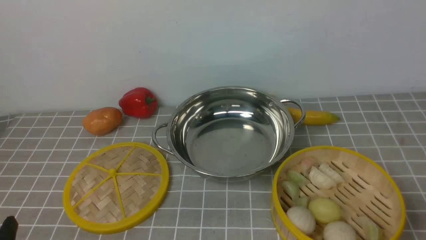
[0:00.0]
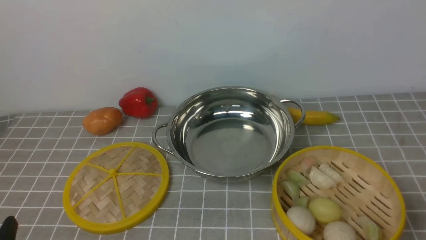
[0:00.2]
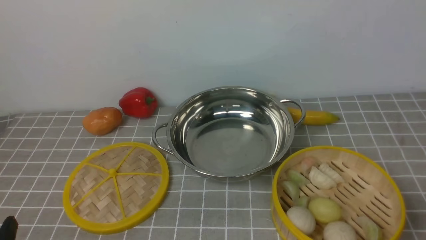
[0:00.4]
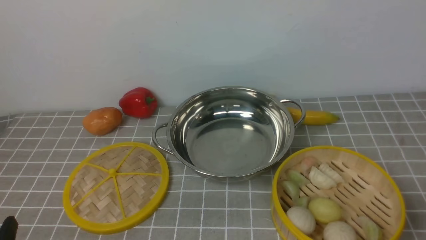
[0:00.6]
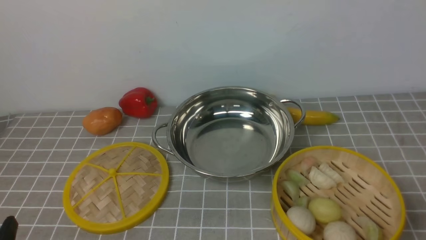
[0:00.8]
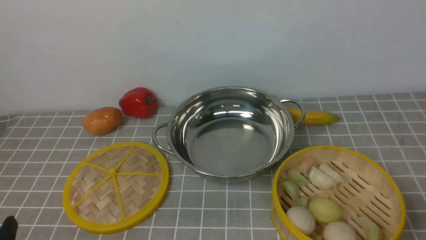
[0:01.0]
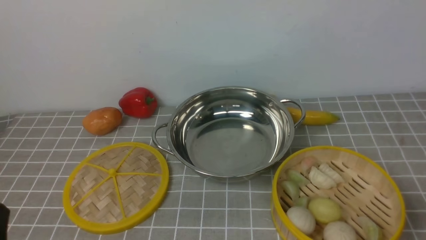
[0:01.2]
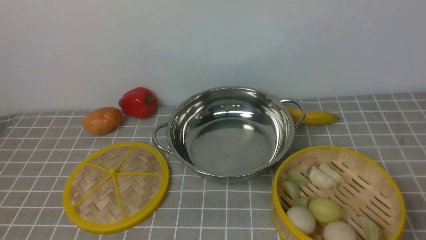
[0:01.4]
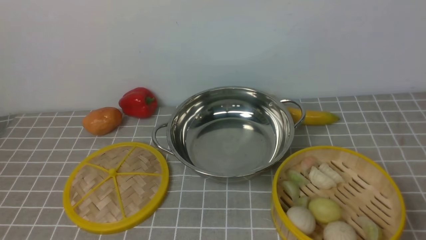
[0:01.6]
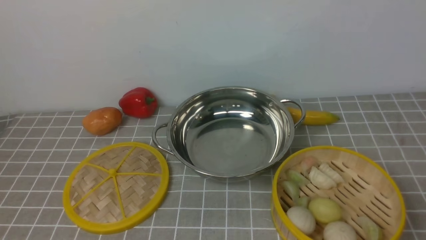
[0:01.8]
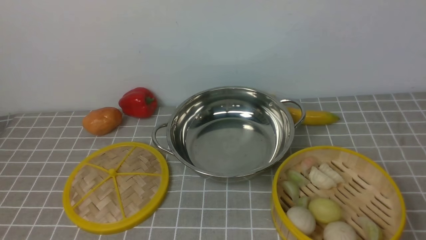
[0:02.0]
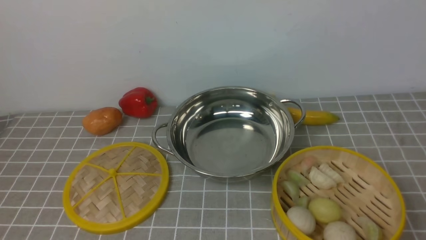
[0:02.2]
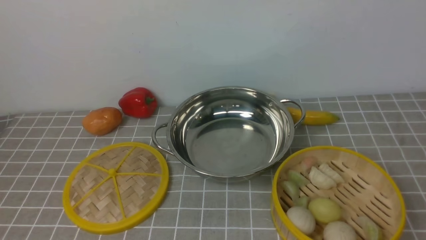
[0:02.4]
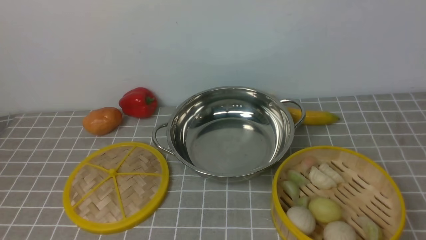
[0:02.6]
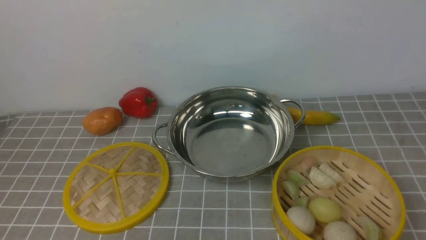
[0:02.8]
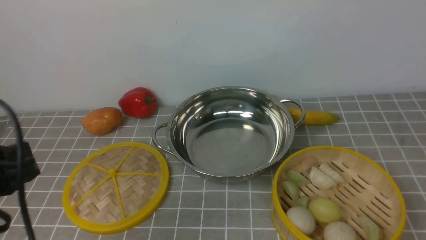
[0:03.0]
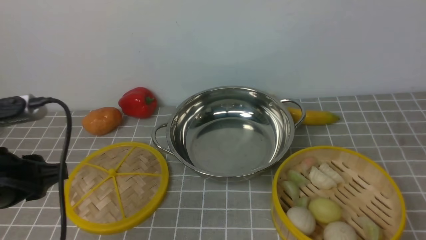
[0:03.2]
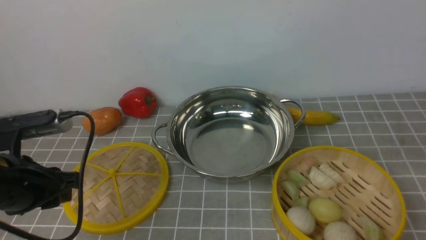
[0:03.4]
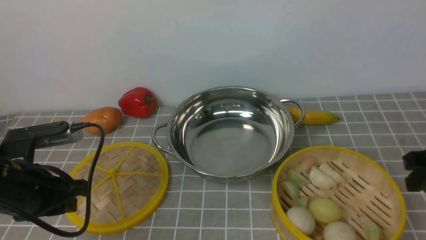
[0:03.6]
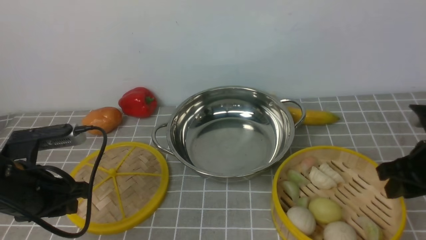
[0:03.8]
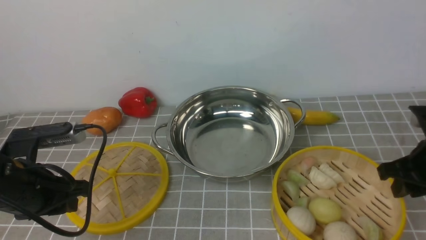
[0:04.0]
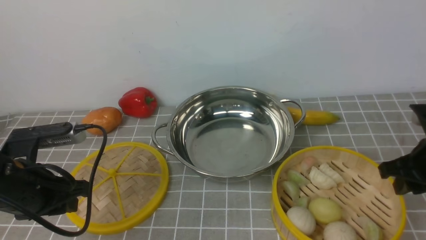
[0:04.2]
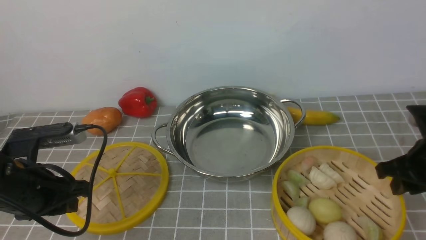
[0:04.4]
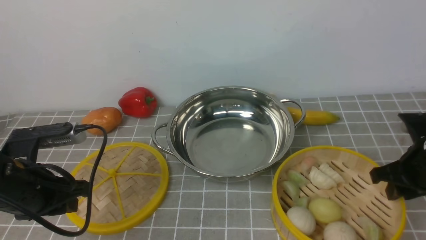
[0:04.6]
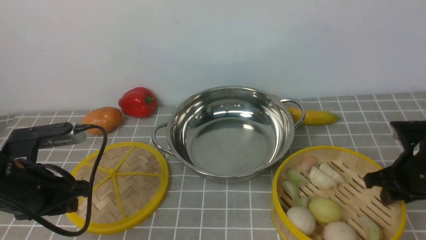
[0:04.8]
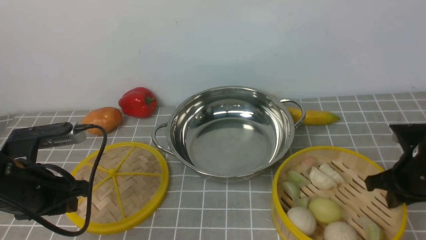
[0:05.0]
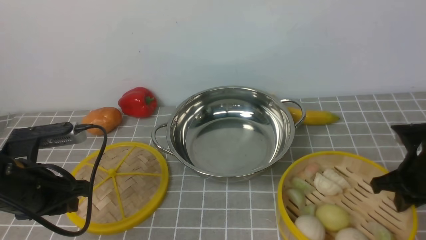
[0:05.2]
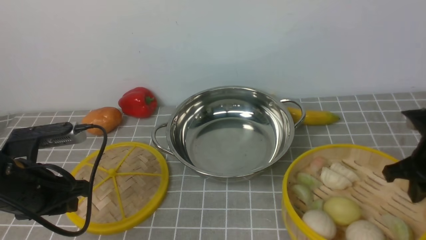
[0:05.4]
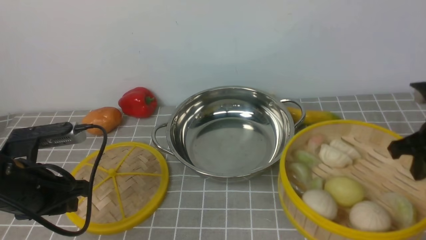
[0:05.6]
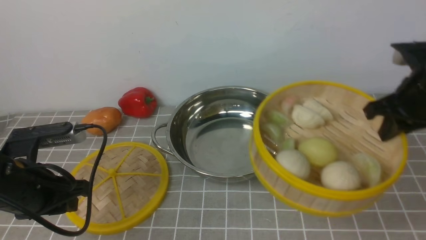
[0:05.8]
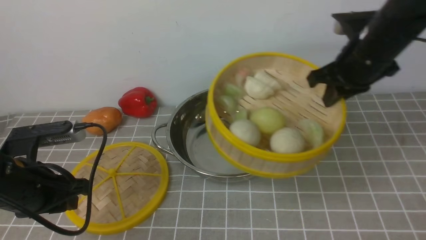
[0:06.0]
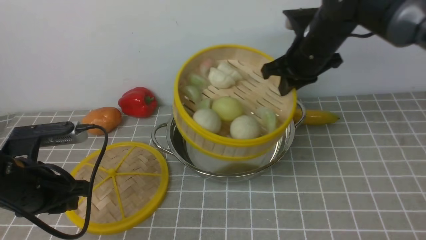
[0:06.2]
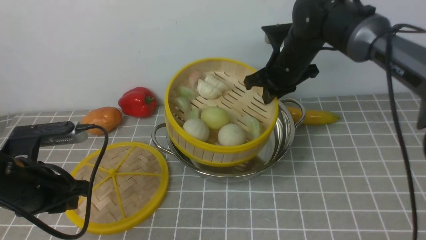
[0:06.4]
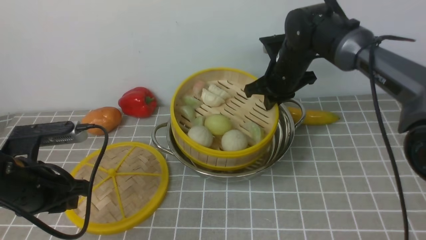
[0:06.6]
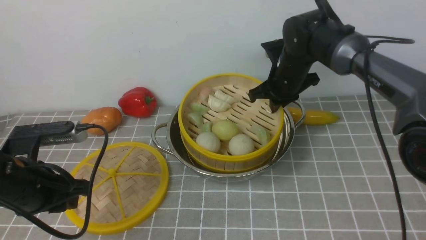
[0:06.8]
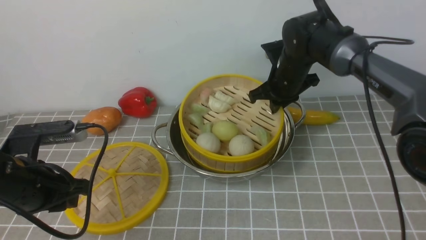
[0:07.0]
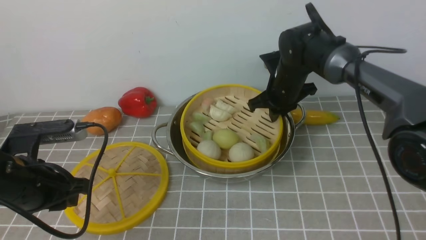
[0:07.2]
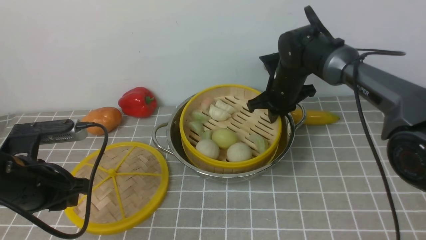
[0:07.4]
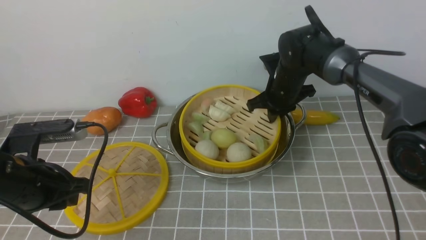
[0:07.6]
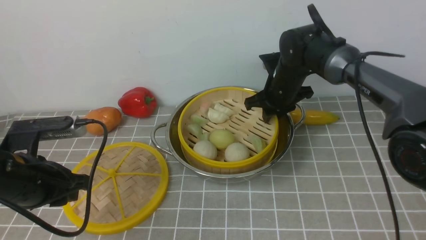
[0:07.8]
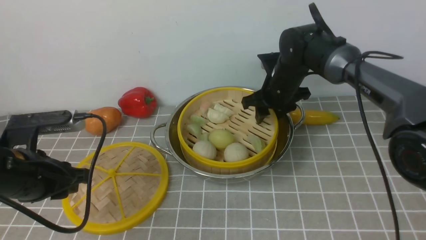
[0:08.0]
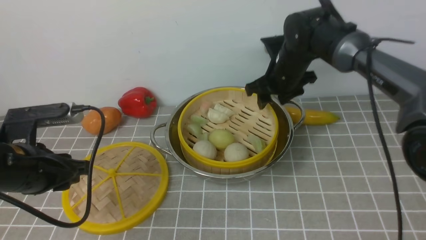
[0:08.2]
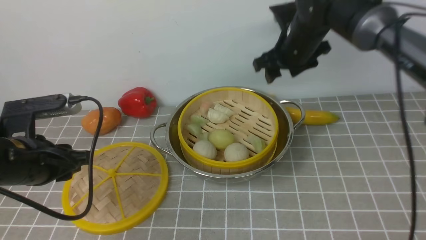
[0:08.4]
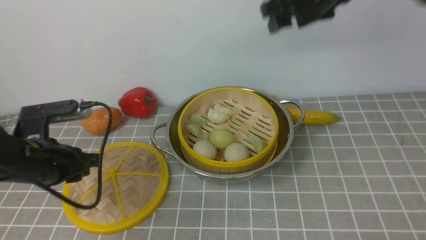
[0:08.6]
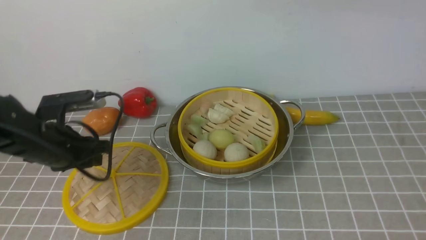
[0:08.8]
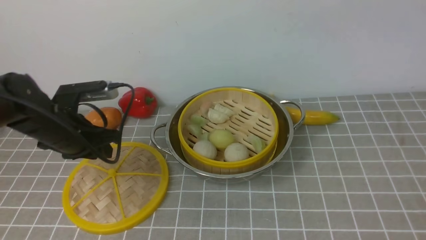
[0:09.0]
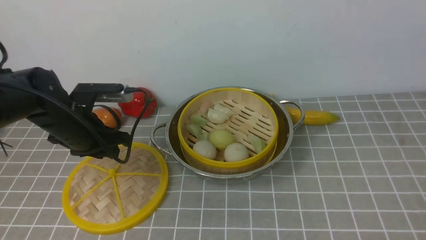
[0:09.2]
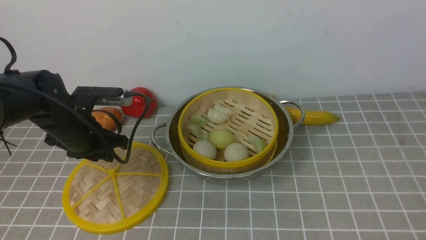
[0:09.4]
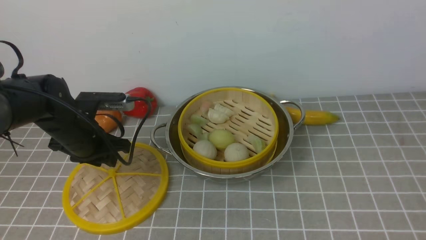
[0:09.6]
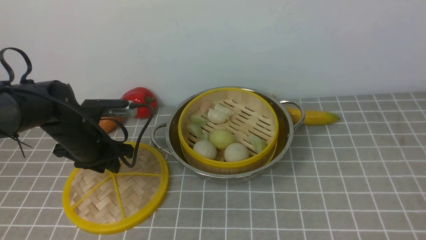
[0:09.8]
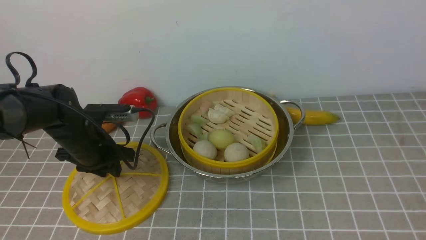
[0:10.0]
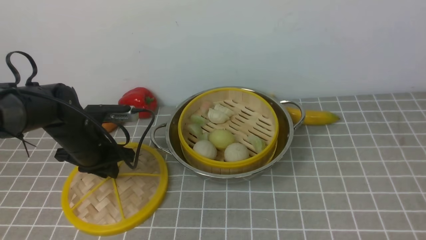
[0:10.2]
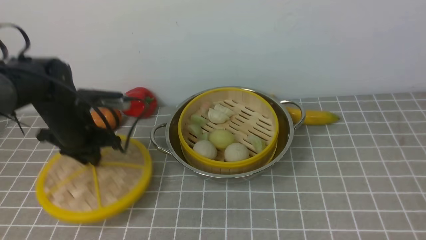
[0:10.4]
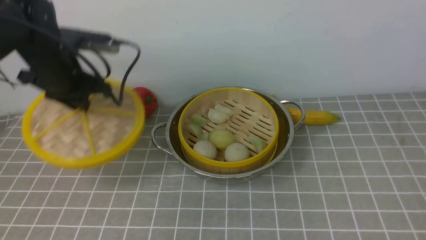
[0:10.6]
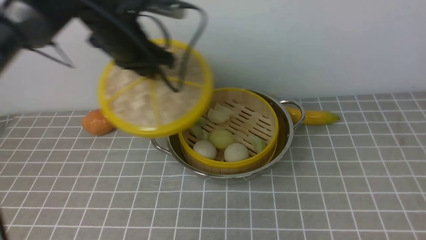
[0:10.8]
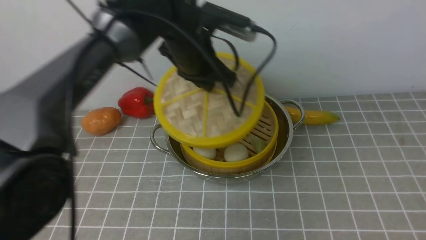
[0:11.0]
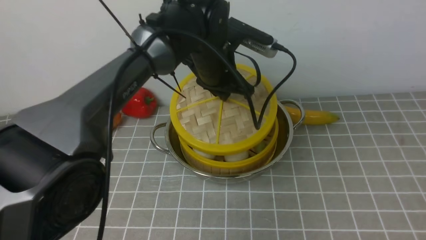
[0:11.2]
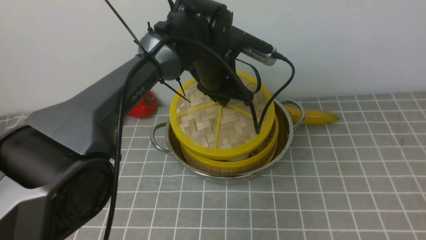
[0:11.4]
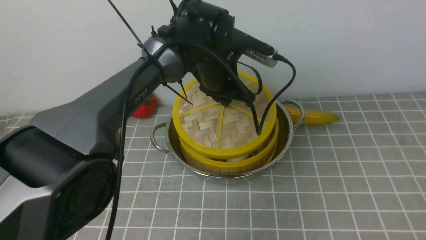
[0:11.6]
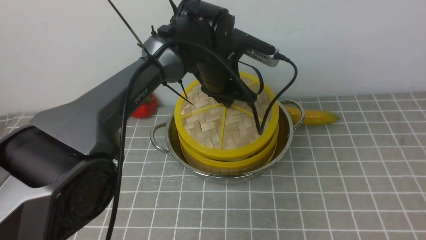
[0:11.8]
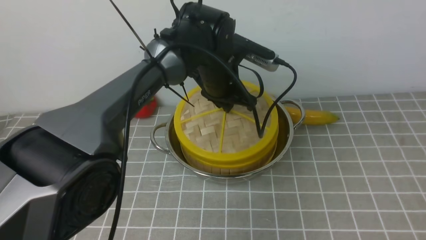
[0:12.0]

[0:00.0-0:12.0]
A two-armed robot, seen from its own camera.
Task of the whole recording: place the steamer in the pot on the grey tablecloth, and put the lid on the steamer.
Step, 0:00.0 to 0:05.2: use the right arm to lift the steamer closest to it.
Step, 0:05.4 to 0:08.0: use the right arm to put the steamer into the iron steamer pot in the middle.
Step, 0:08.4 to 0:10.2: use the left arm to lift the lid of the steamer.
0:01.6 to 0:03.0: The left gripper goes about 10 cm forward and upward.
0:03.0 to 0:04.4: The left gripper is displaced downward and forward by roughly 10 cm, while the right gripper is displaced downward and forward by approximately 20 cm.
0:04.4 to 0:06.0: The right gripper is displaced forward, upward and to the left by approximately 20 cm, and closes its fingers.
0:06.0 to 0:07.6: The right gripper moves downward, forward and to the left, some 15 cm.
0:07.6 to 0:09.0: The right gripper heads upward and backward, covering some 50 cm, and opens up. The left gripper moves forward, some 10 cm.
0:09.0 to 0:10.4: The right gripper shifts approximately 15 cm backward and to the right.
0:10.4 to 0:12.0: The left gripper goes roughly 25 cm to the right.

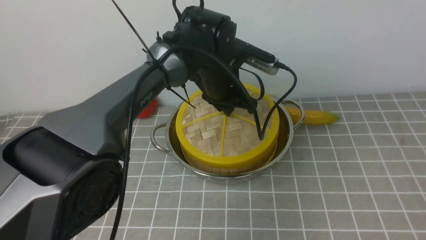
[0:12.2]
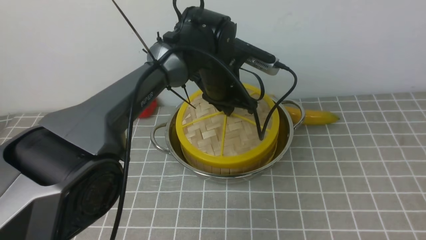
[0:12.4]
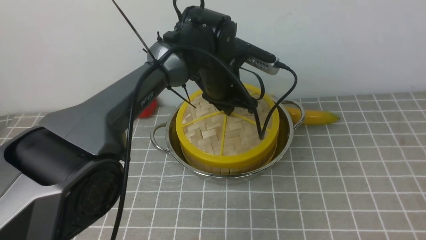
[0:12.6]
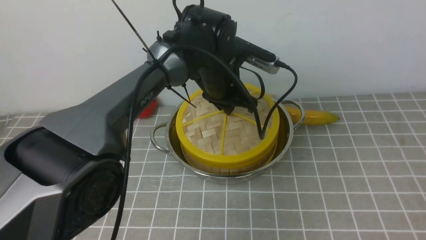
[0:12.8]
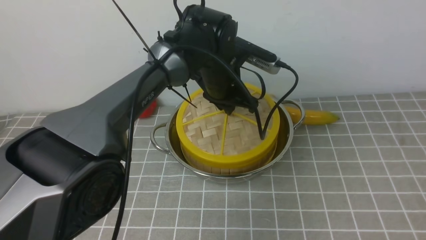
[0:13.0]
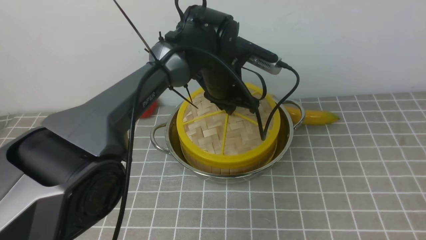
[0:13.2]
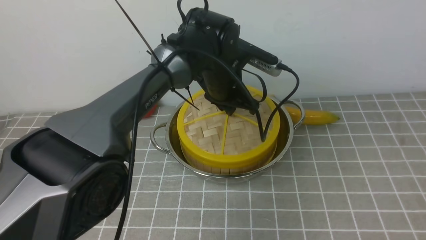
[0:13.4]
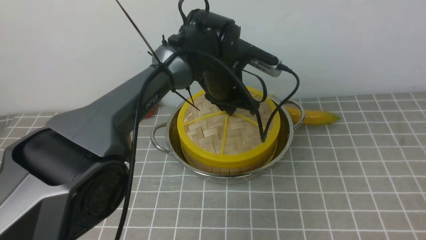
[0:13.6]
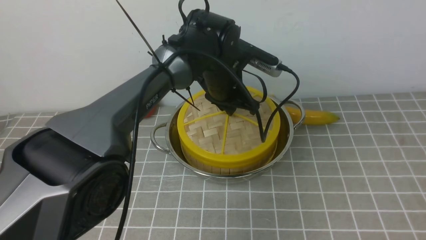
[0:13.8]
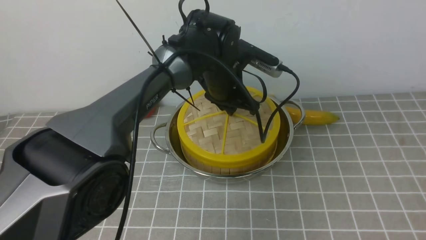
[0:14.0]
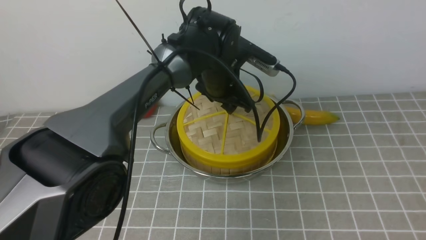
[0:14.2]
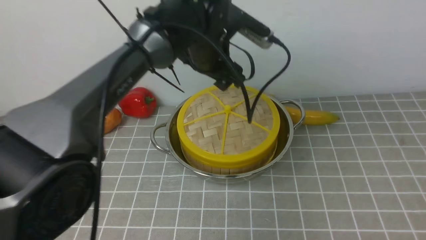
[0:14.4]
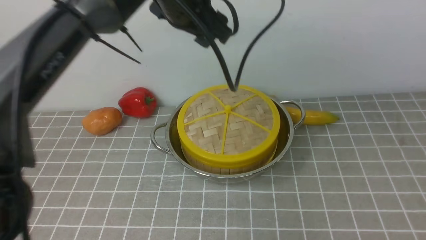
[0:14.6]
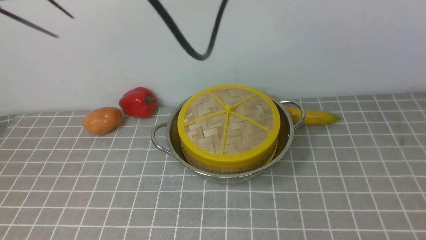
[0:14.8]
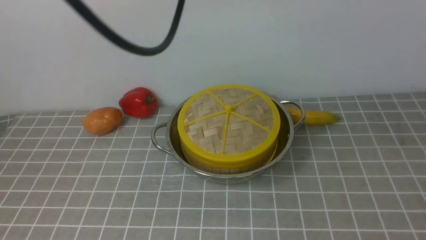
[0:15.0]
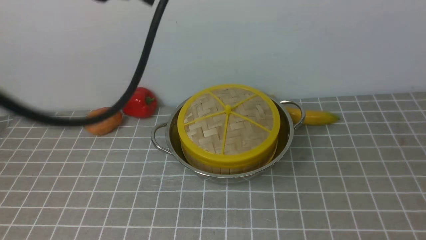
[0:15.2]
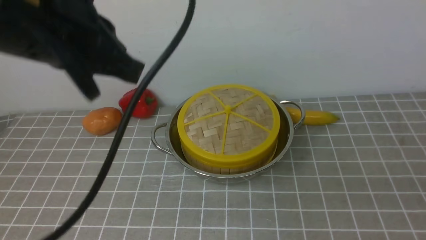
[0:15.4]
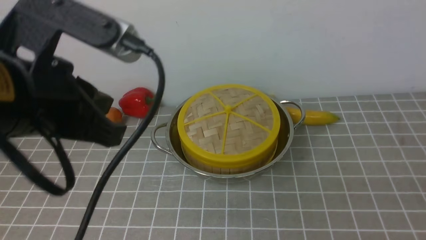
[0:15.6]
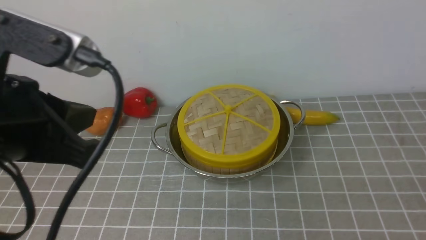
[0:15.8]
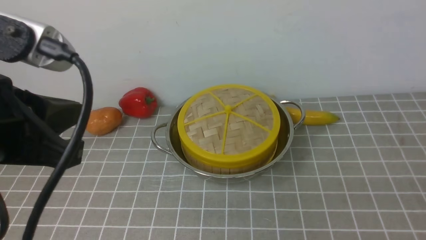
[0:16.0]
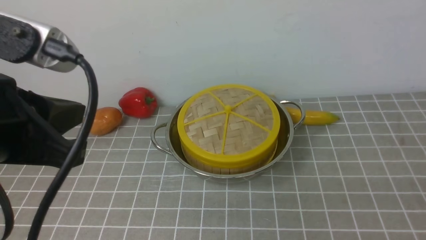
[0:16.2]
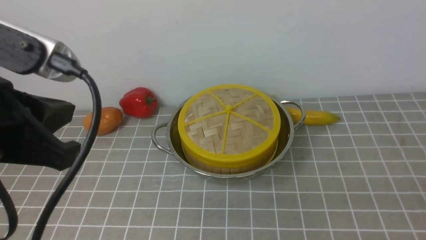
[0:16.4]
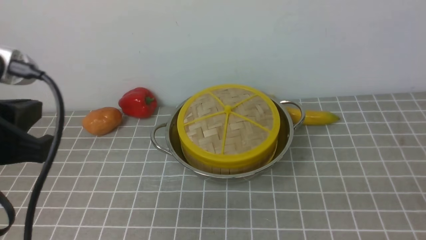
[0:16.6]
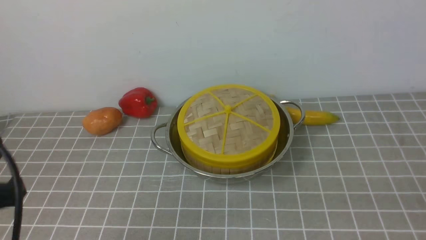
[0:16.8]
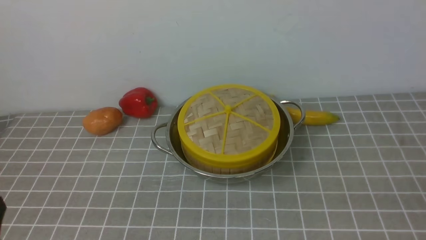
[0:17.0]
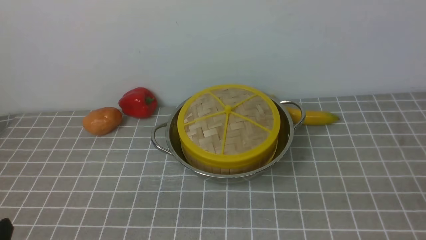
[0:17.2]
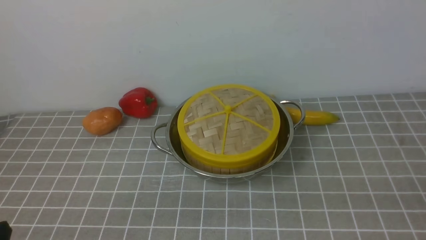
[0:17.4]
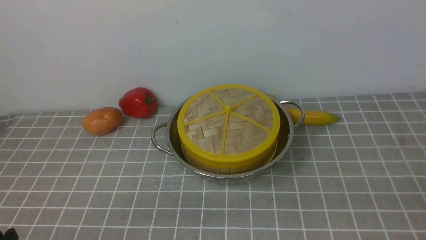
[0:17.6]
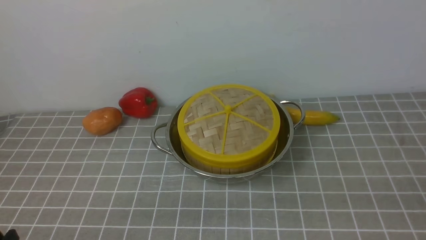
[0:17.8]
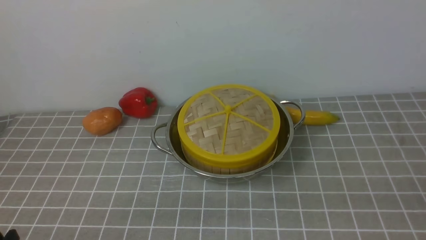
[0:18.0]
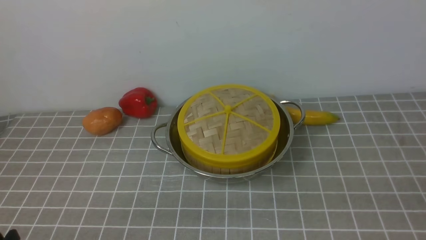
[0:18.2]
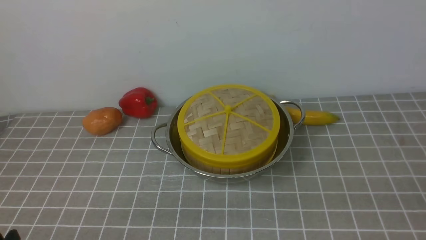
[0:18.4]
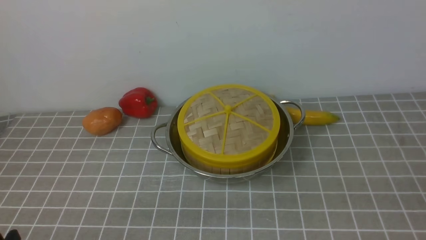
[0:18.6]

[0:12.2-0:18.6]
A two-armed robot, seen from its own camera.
Task of the whole recording: place the steamer in the pot on the grey tablecloth, and put the lid on the steamer.
Step, 0:12.2 to 0:14.2: use the left arm to place the steamer lid on the steamer.
0:12.2 to 0:13.8: Both grippers stay about where they are.
0:13.8 to 0:15.4: The left gripper is displaced backward, upward and to the left by about 35 cm, and closes its fingers, while the right gripper shifts roughly 20 cm downward, and closes its fingers.
0:15.4 to 0:17.0: The left gripper shifts approximately 25 cm downward, backward and to the left.
